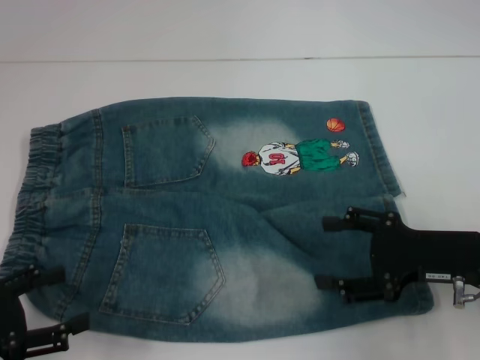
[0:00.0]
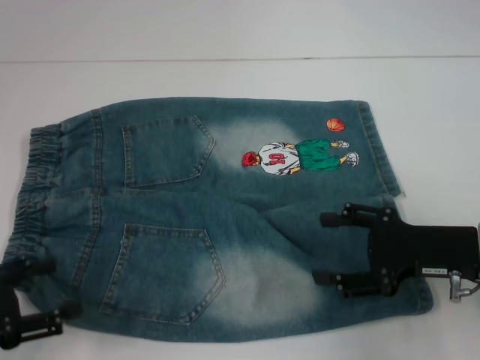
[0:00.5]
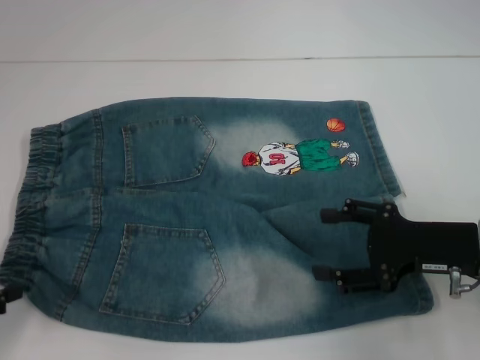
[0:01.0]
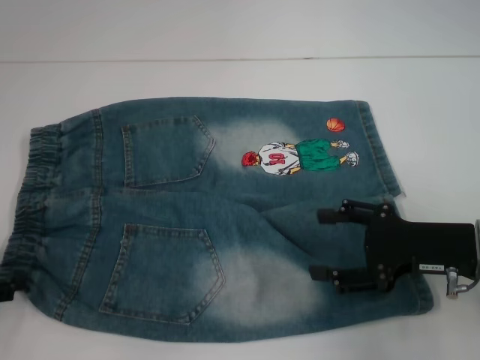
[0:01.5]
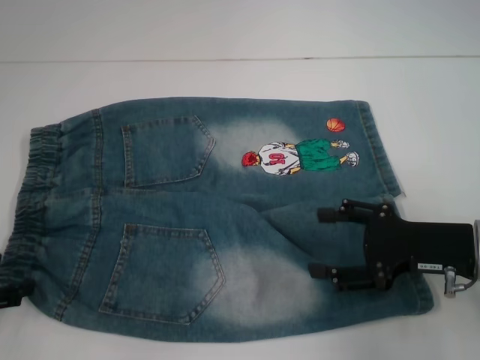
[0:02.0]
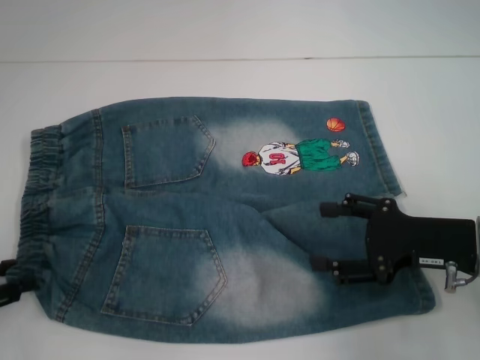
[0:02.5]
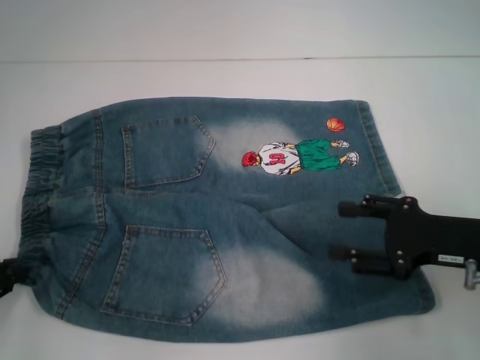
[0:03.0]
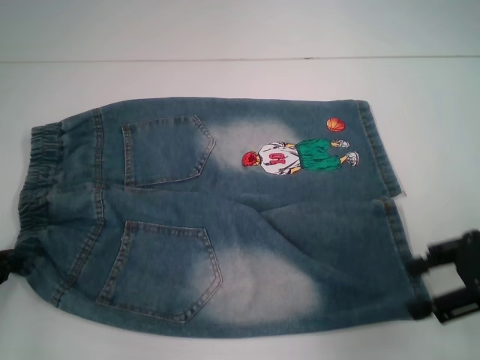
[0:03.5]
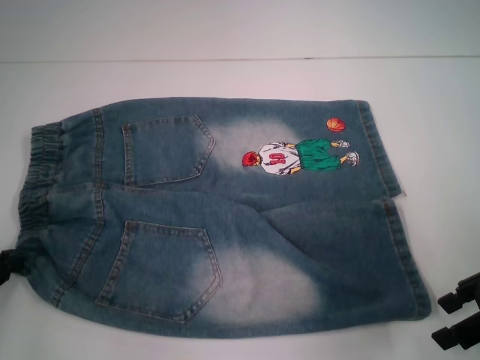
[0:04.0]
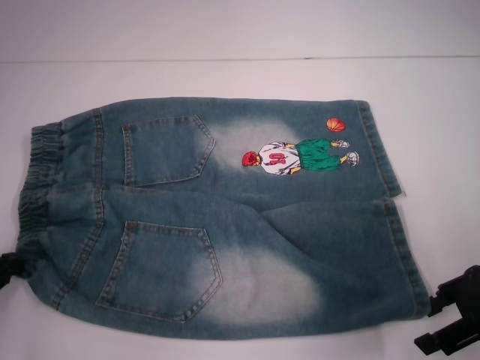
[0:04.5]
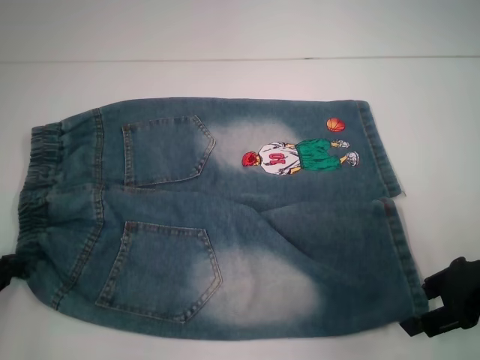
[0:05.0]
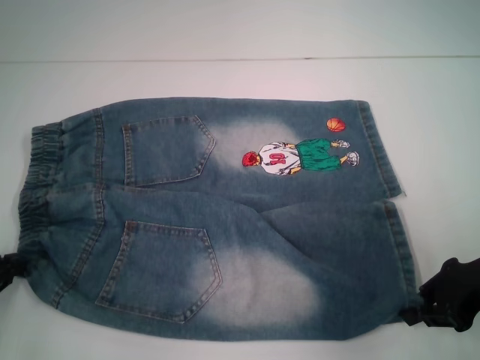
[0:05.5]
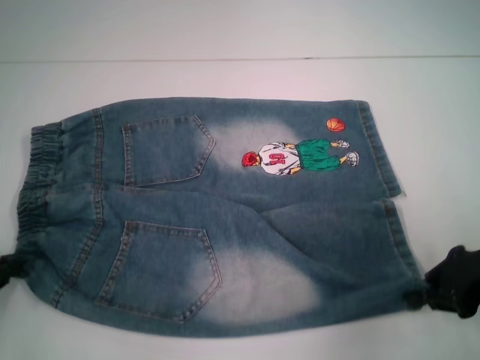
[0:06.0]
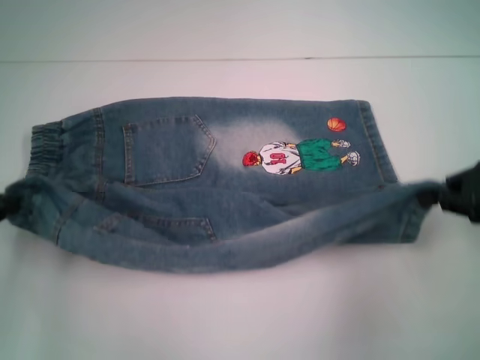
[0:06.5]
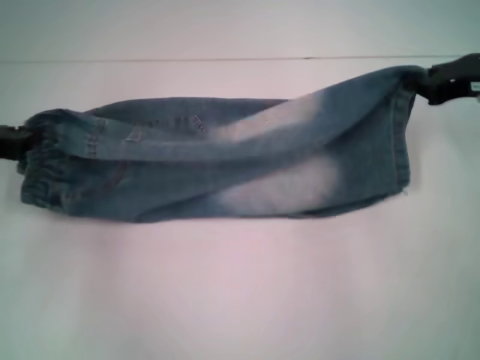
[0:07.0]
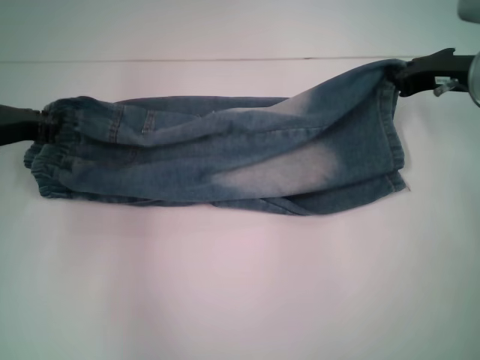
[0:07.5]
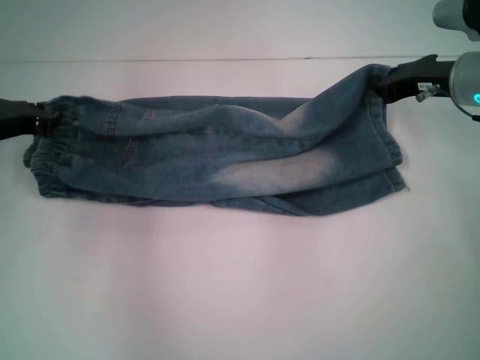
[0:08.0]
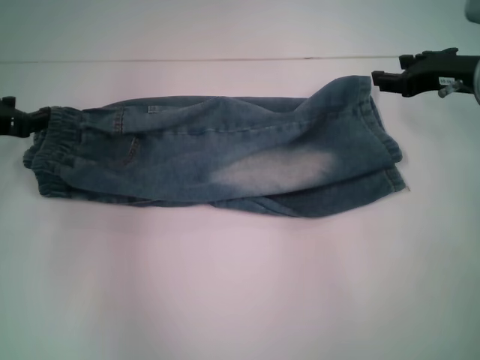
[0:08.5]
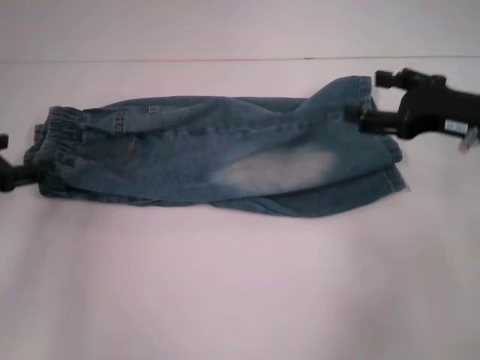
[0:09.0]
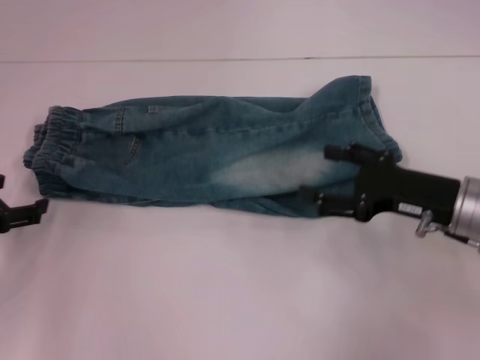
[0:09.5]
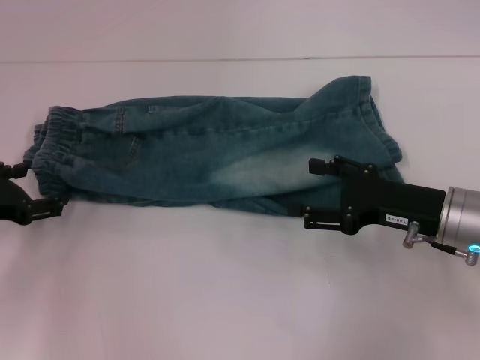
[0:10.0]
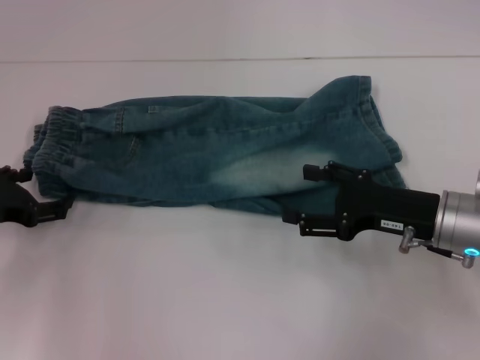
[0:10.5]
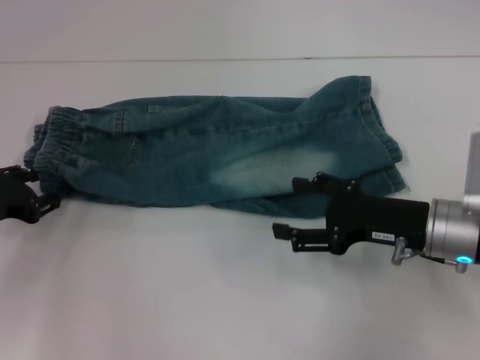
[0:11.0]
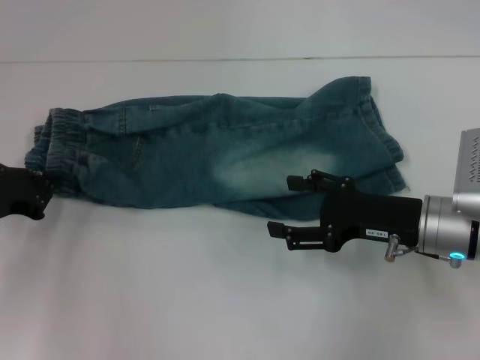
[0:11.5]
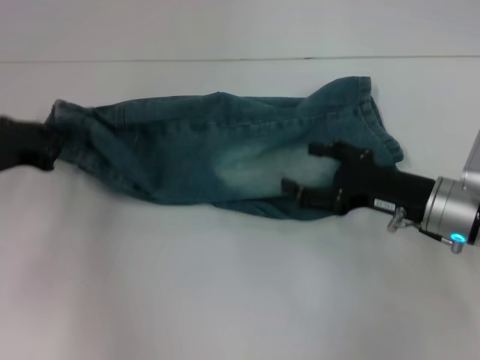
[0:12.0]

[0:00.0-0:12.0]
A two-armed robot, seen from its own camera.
Step, 0:00.0 to 0:03.0: Hold the lower left waistband with your left hand.
Step, 0:03.5 to 0:05.5: Grab the lower right pant leg with your right hand.
Step, 0:06.0 to 0:08.0: Fold upward with your right hand.
Step, 0:08.5 to 0:11.5: Hold the waistband with your left hand.
0:00.0 to 0:02.0: The left gripper moves approximately 5 cm.
0:02.0 to 0:04.0: The left gripper closes its fingers, while the right gripper shifts roughly 10 cm upward and to the right.
0:04.0 to 0:06.0: The right gripper closes.
0:06.0 to 0:08.0: The right gripper travels forward by some 15 cm. Meanwhile the left gripper travels forward and to the right by roughly 15 cm.
0:08.0 to 0:10.0: The right gripper goes roughly 15 cm backward and downward, and opens its fingers, while the left gripper moves backward, approximately 10 cm, and opens up.
0:10.0 to 0:12.0: The left gripper changes place by some 5 cm, and closes up.

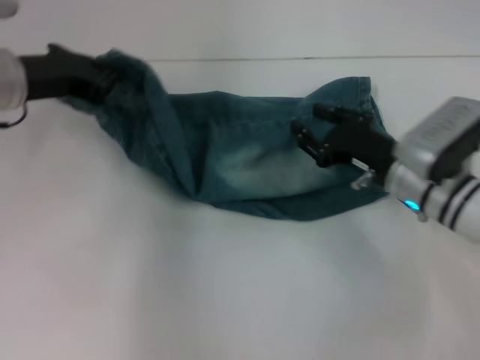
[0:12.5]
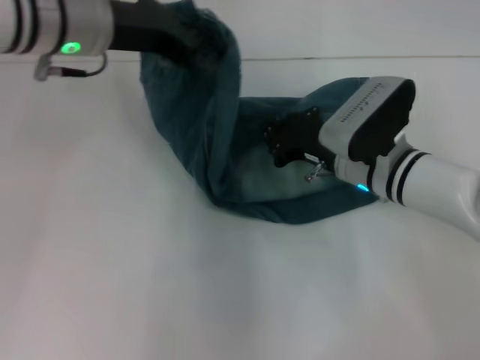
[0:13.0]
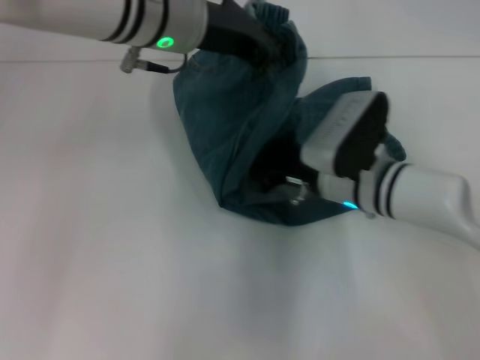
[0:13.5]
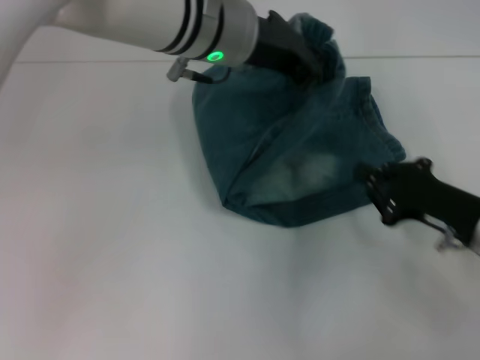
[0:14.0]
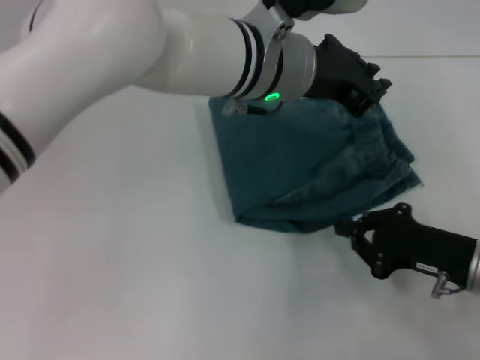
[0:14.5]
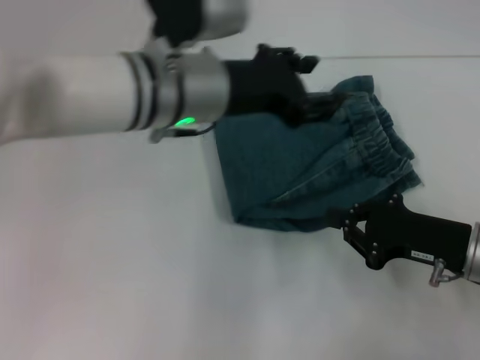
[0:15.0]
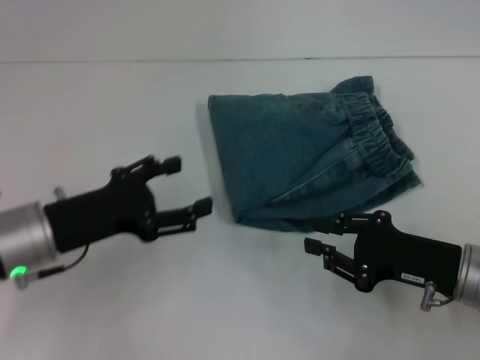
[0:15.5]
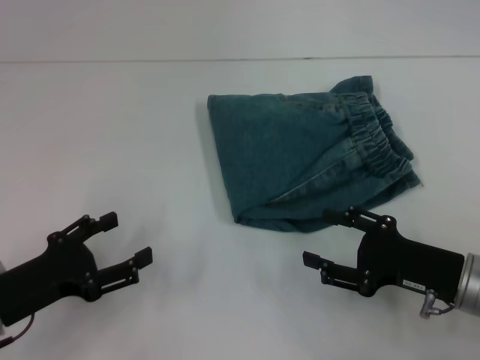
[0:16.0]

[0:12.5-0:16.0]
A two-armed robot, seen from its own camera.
Step, 0:13.5 to 0:14.0: Fold to the right with your left hand.
0:12.5 to 0:14.5: The left gripper goes some 25 cm to the right. The right gripper goes roughly 10 cm backward and to the right, and closes.
0:14.5 to 0:16.0: The left gripper goes about 35 cm to the left, downward and backward, and opens, while the right gripper opens its fingers.
